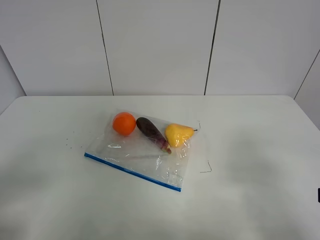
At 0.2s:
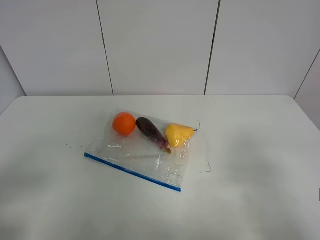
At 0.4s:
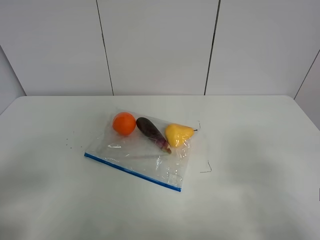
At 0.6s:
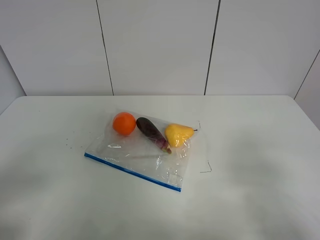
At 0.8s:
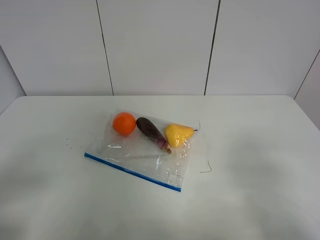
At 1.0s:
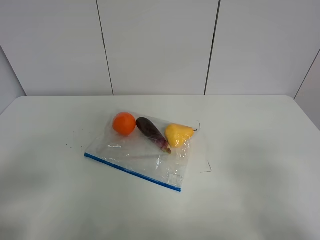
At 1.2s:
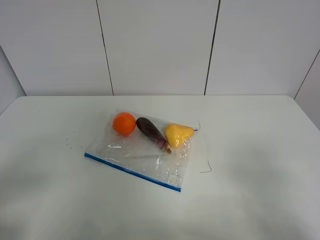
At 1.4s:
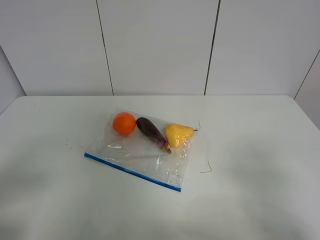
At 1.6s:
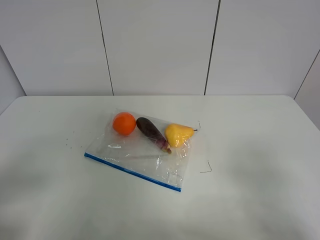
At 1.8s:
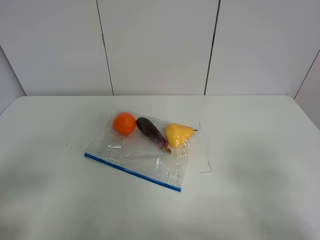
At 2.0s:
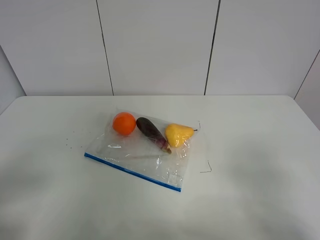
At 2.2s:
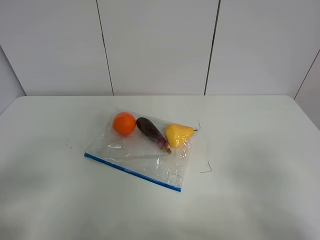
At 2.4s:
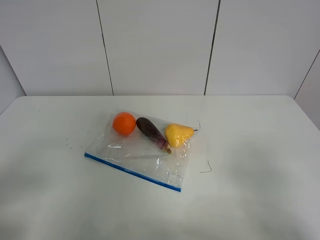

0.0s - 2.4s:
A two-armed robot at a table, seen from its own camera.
1.2s - 2.4s: Both grippers stay about where they are.

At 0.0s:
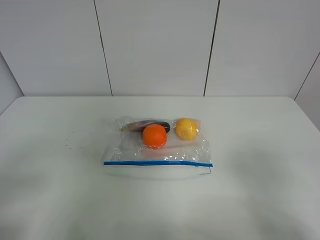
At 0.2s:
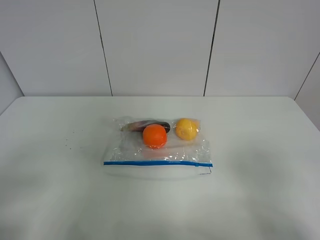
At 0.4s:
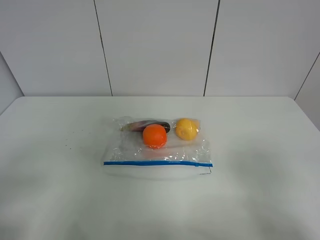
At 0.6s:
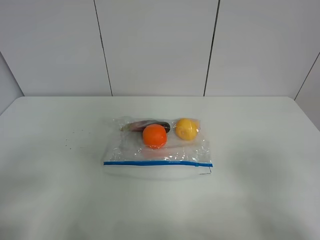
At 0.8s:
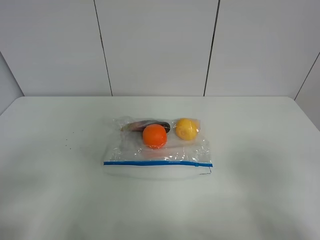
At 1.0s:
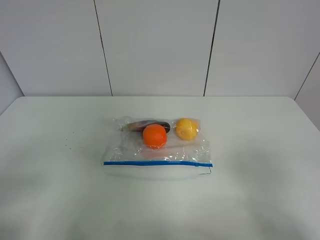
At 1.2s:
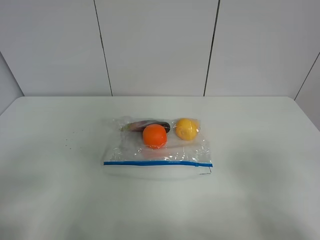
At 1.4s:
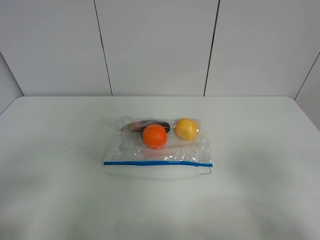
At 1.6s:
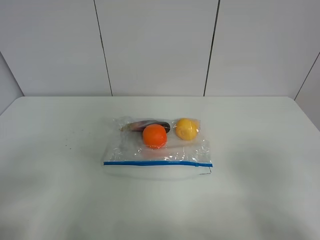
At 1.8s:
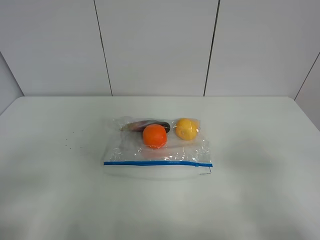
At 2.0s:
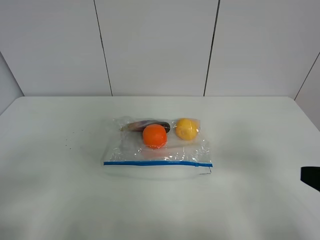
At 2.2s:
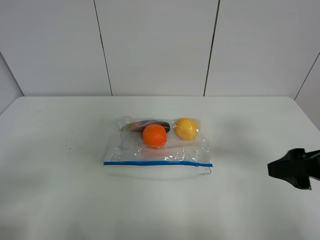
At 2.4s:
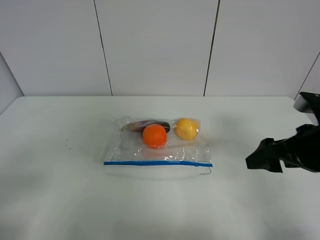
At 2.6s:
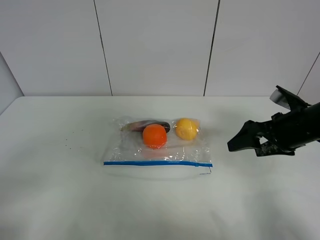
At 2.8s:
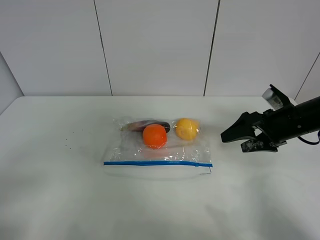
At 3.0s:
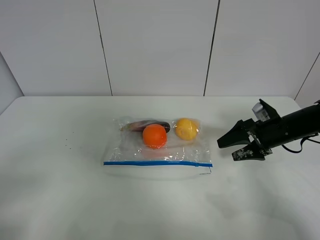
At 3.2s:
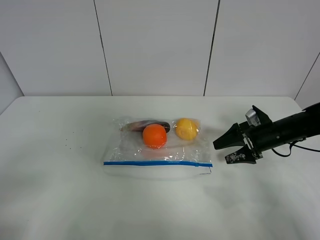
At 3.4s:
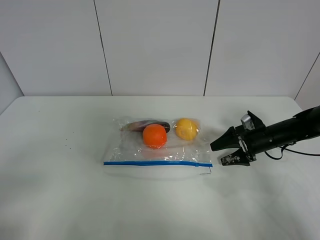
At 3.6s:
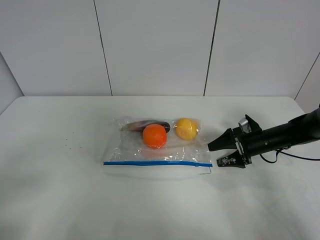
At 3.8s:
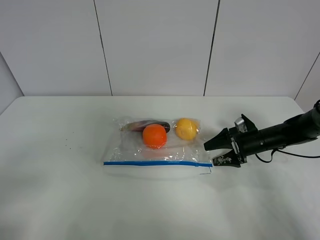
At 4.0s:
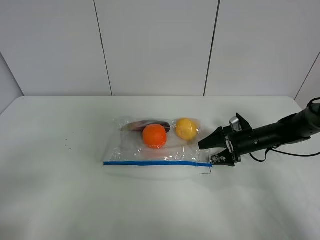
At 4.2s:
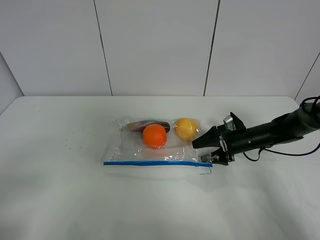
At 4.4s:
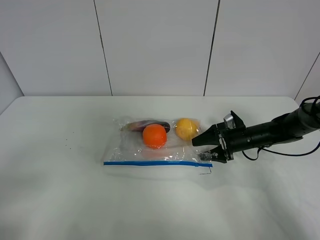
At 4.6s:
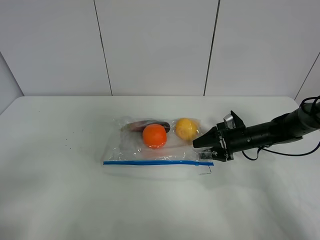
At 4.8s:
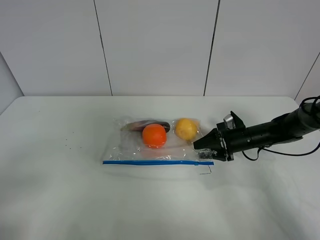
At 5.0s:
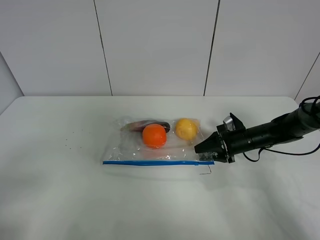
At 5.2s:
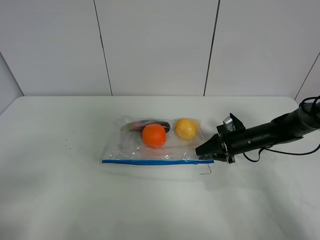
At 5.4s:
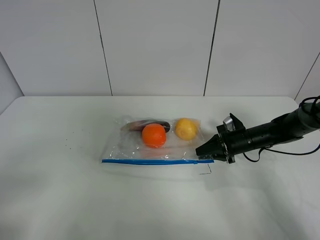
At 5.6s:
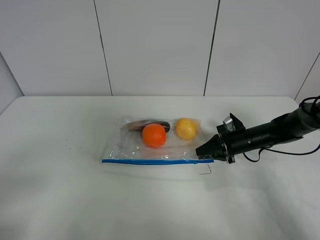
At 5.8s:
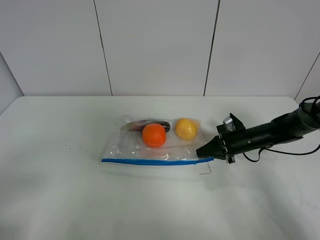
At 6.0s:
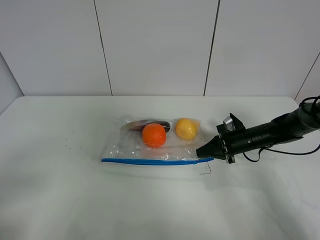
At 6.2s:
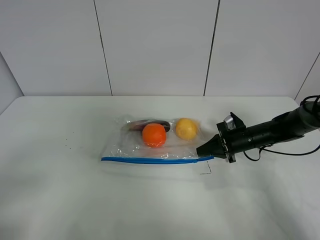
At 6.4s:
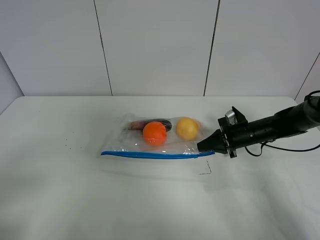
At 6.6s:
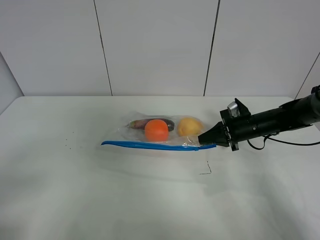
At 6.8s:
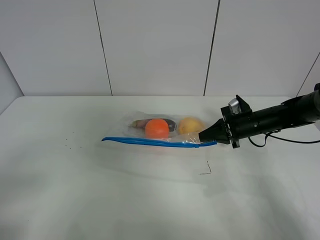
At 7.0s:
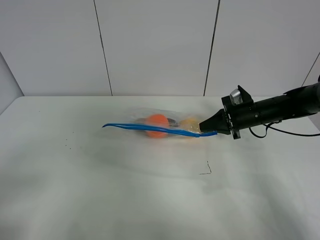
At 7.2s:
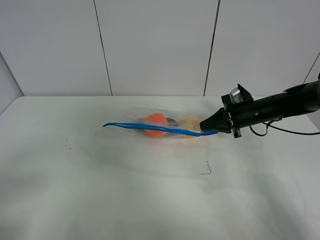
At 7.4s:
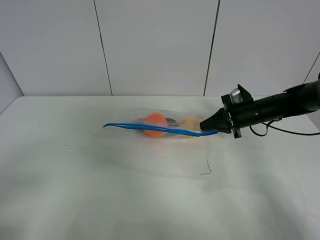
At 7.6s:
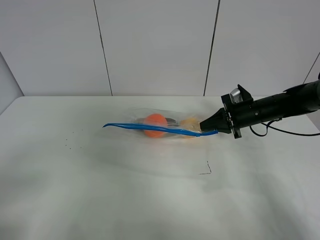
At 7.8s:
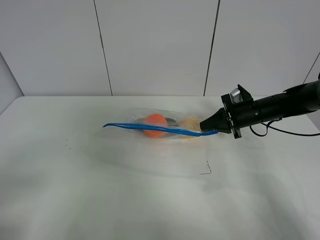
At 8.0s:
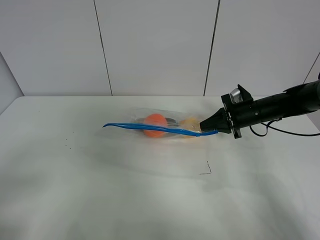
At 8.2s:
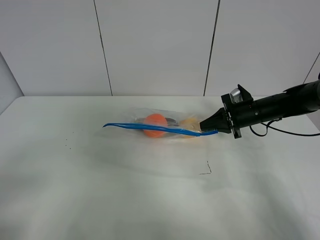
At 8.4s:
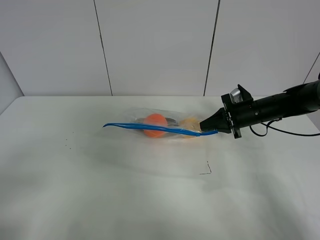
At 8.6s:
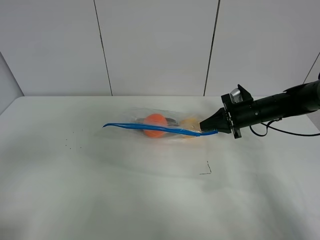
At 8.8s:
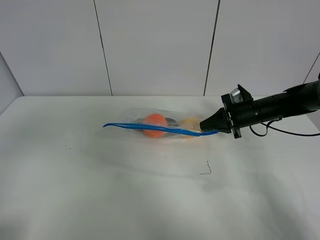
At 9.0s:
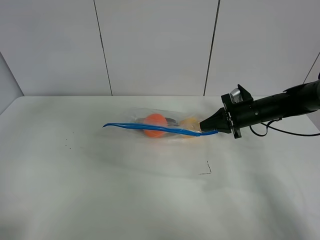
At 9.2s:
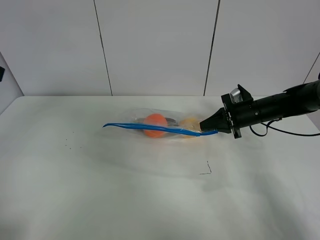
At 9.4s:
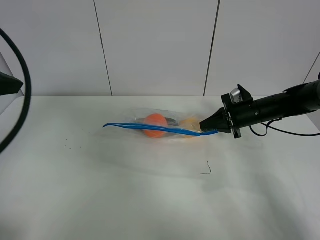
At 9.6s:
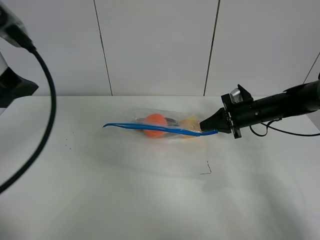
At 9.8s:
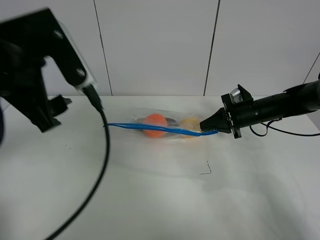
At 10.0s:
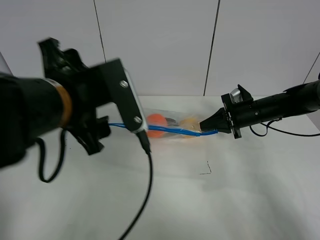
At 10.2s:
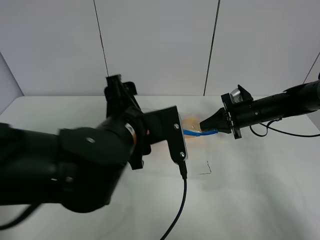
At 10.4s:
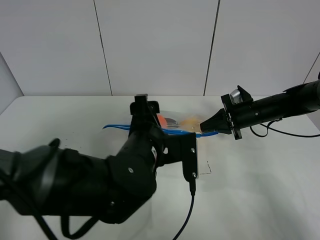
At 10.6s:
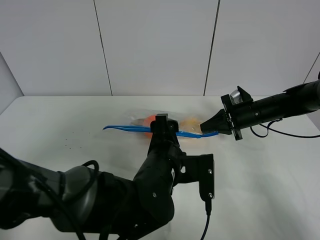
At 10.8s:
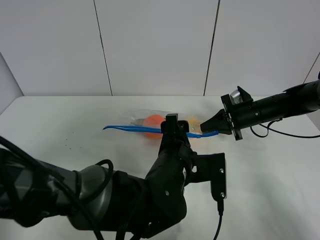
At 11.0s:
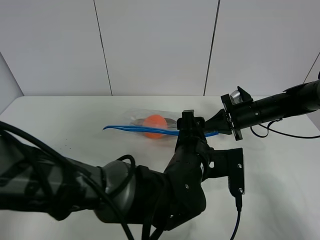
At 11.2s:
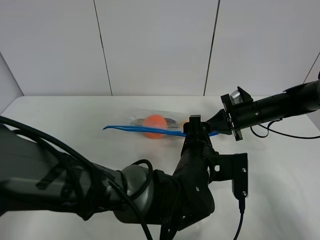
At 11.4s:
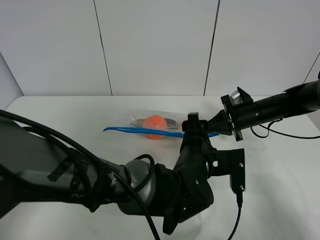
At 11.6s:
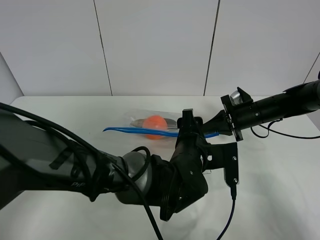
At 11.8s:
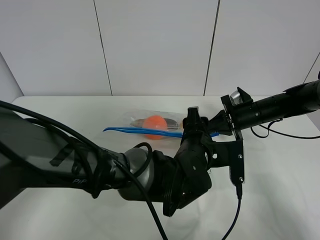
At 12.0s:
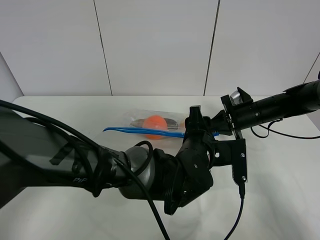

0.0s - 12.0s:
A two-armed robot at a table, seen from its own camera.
Step, 0.0s - 5.6s: Grasp the fruit bag with right gripper.
Step, 5.8s - 7.8s: Lift the fruit bag with your right gripper.
0.0s - 1.6s: The two grippers keep their place.
1.6s - 3.0s: The right gripper heads forward and downward, covering some 35 cm.
3.0s - 4.4s: The right gripper travels downward by about 5 cm.
4.4s - 6.0s: The right gripper closes.
6.0s - 7.6s: The right gripper travels upward by roughly 10 cm.
9.0s - 10.4s: The left gripper heads to the right and downward, covering about 35 cm.
10.4s - 12.0s: The left gripper shifts some 10 cm to the right.

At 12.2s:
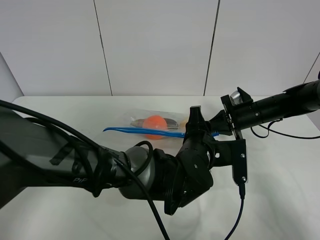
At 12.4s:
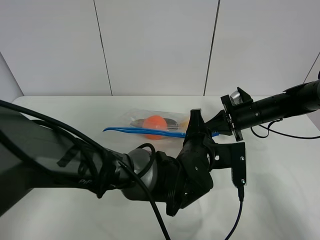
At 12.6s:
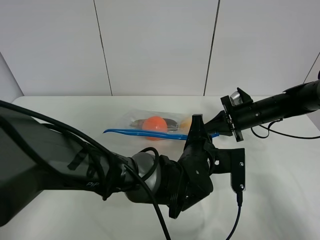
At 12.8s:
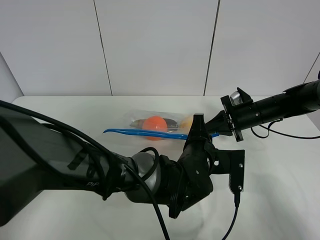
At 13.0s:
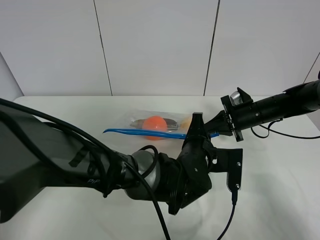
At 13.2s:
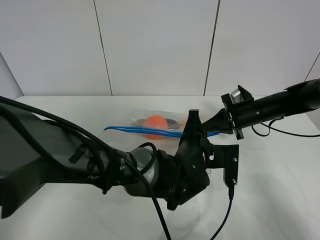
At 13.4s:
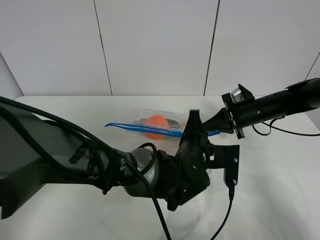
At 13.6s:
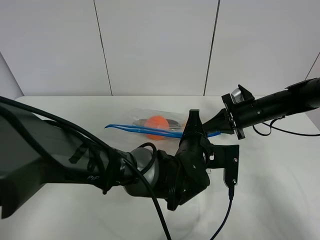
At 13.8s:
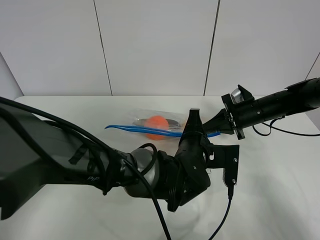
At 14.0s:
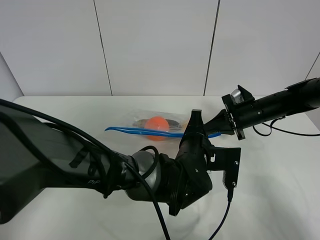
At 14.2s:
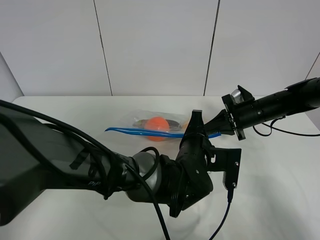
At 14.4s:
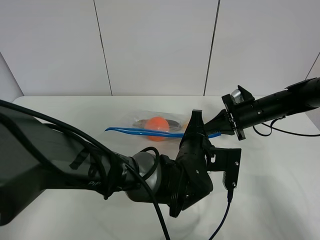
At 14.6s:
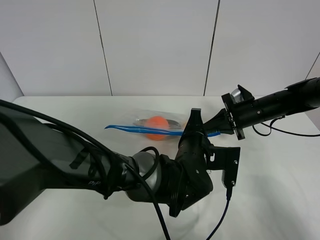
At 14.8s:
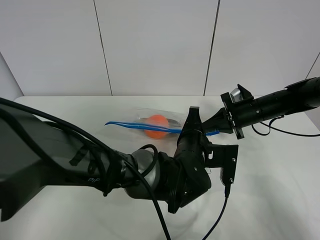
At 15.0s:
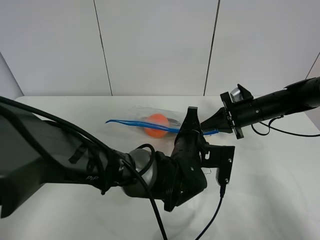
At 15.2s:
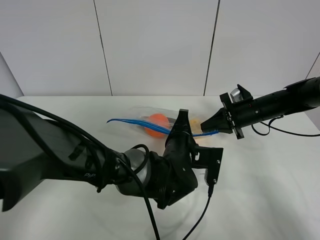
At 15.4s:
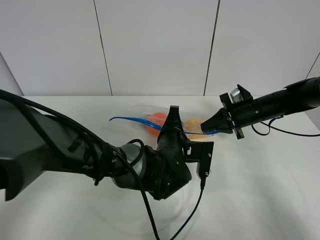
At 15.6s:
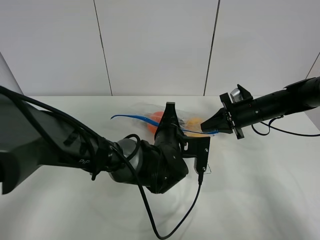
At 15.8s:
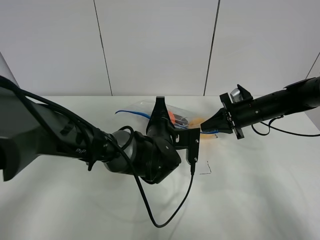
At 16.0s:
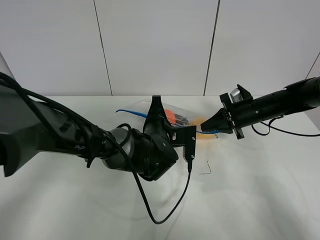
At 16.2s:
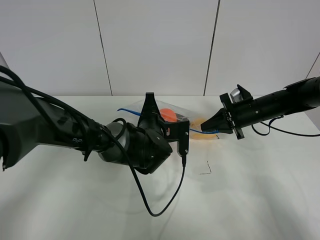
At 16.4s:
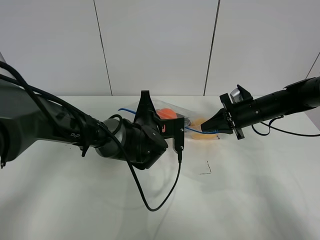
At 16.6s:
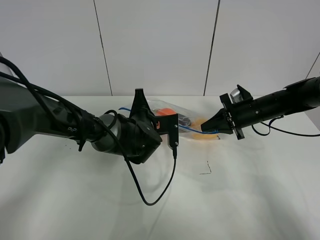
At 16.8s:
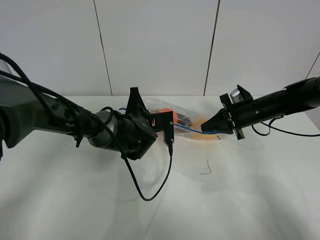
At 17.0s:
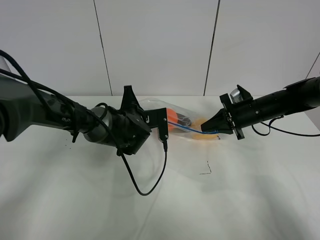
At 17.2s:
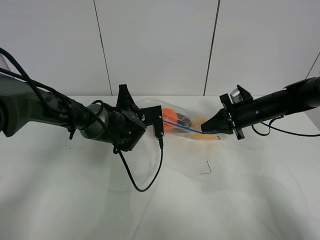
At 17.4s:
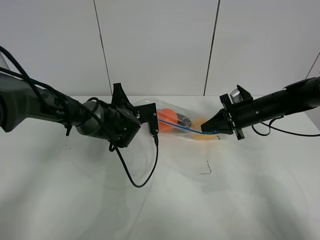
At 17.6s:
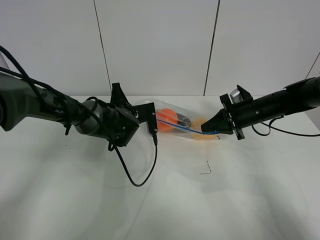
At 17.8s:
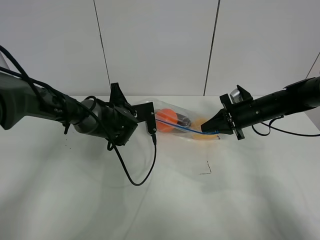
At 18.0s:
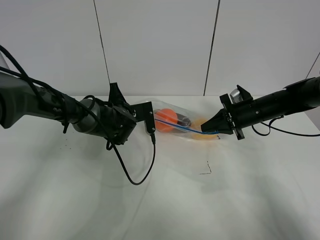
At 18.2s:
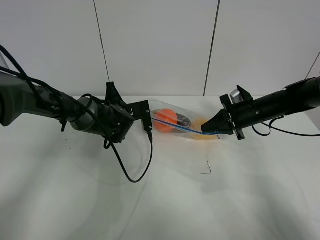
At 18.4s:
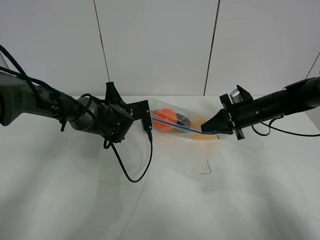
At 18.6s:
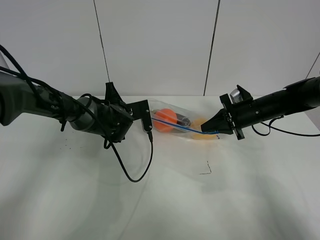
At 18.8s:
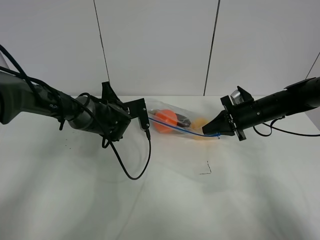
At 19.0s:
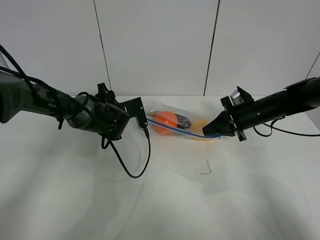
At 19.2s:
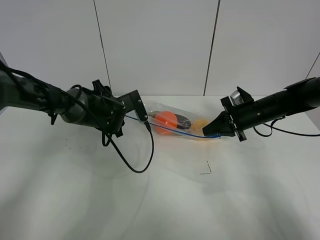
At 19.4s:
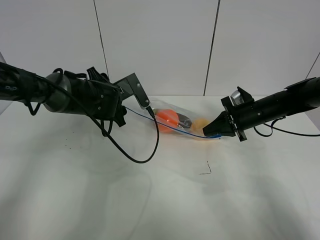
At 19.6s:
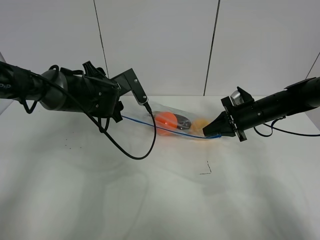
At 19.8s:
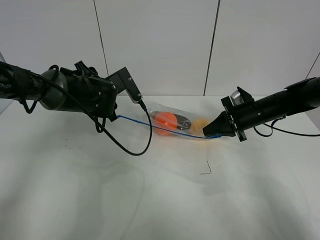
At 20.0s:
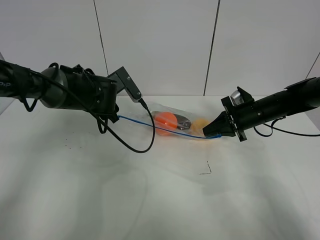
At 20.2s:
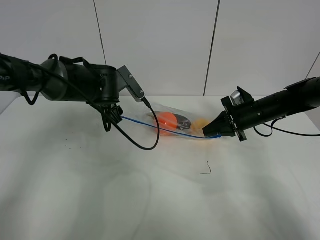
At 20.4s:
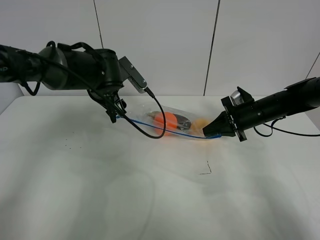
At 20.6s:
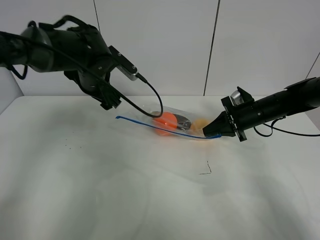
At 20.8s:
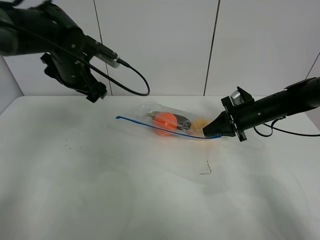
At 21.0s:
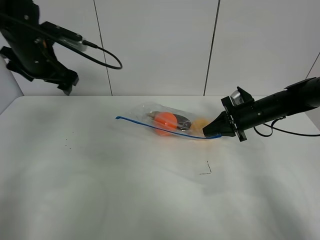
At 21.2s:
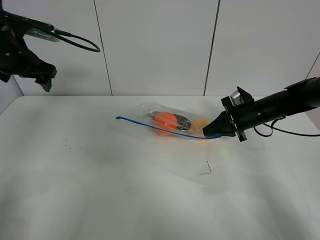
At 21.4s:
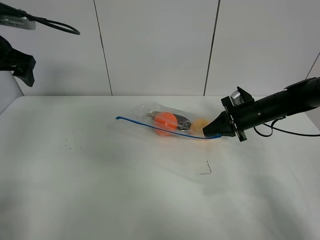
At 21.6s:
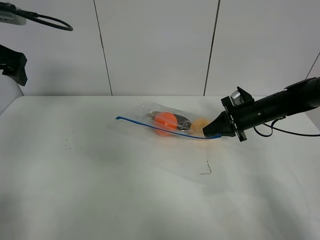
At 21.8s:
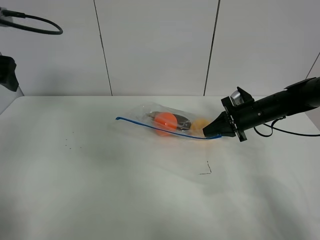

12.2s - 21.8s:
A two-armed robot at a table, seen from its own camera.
Step, 12.2s - 19.2s: Pull the fruit bag with left gripper.
12.2s - 13.8s: The left gripper closes up.
13.8s - 15.4s: The left gripper ends up about 5 cm from where it was.
15.4s - 17.0s: The left gripper heads to the left and forward, covering some 15 cm.
17.0s - 18.6s: The grippers make only small movements.
18.6s - 20.2s: The left gripper goes some 10 cm upward, and opens up.
20.2s - 21.8s: The left gripper goes about 30 cm to the left, upward and backward.
